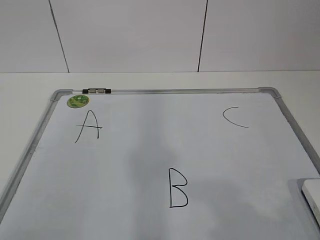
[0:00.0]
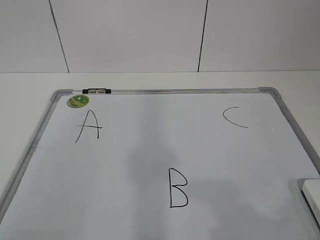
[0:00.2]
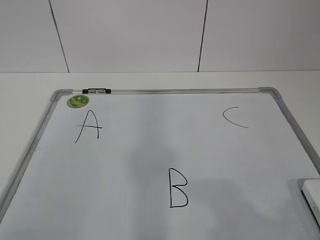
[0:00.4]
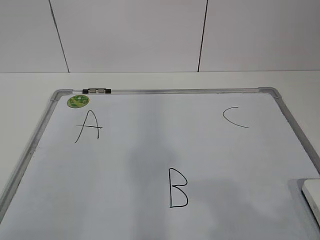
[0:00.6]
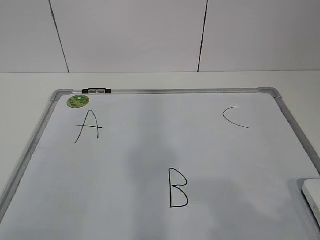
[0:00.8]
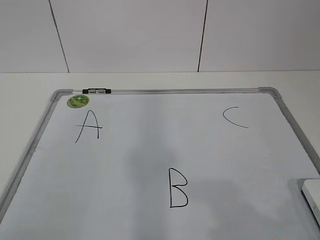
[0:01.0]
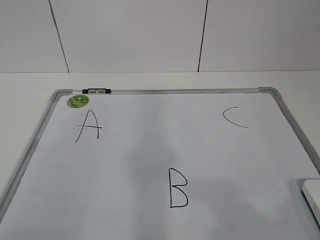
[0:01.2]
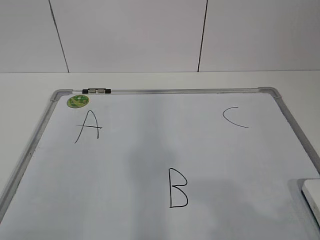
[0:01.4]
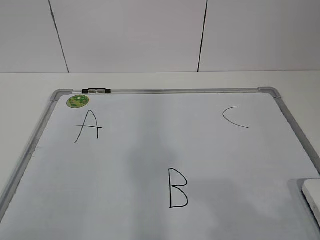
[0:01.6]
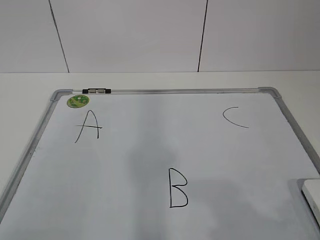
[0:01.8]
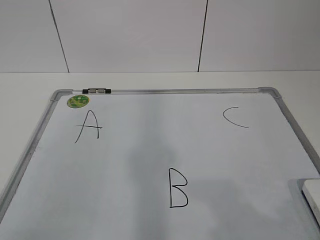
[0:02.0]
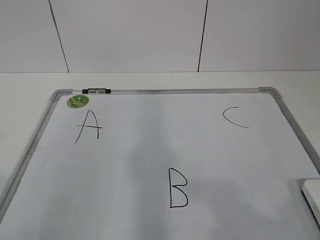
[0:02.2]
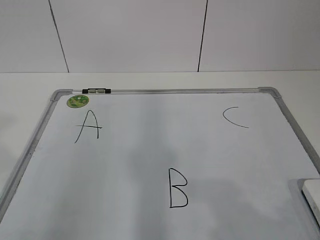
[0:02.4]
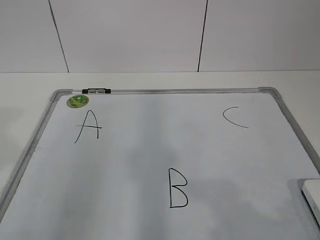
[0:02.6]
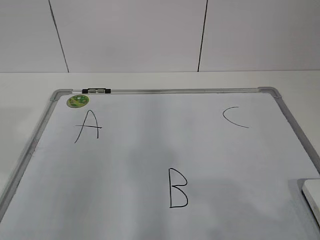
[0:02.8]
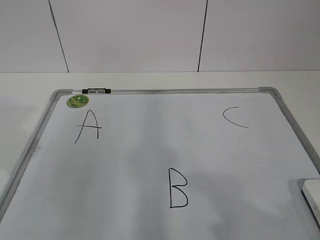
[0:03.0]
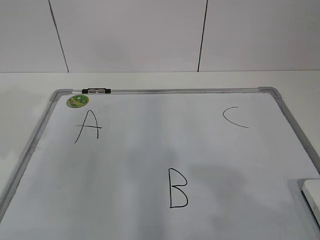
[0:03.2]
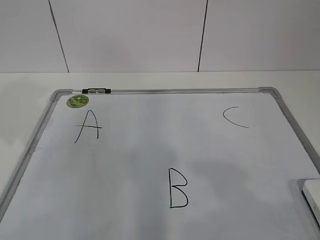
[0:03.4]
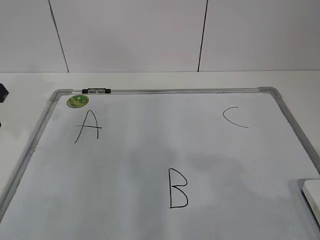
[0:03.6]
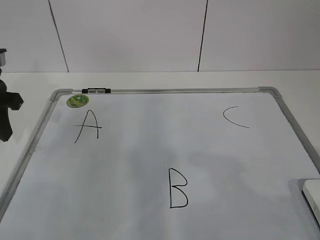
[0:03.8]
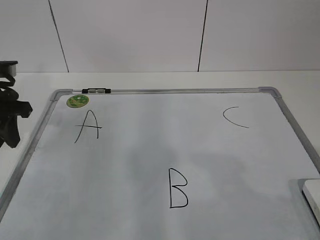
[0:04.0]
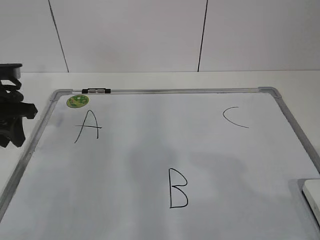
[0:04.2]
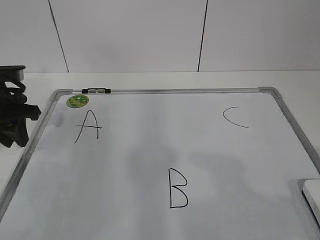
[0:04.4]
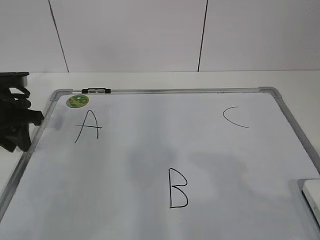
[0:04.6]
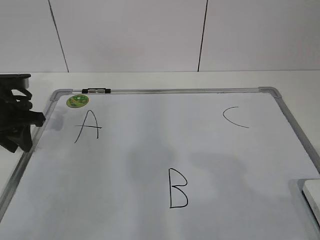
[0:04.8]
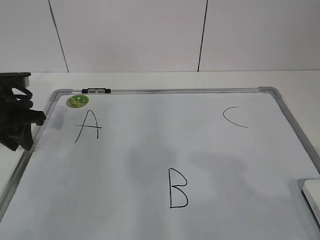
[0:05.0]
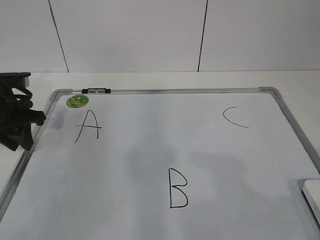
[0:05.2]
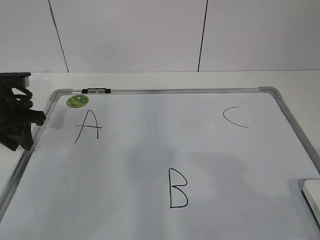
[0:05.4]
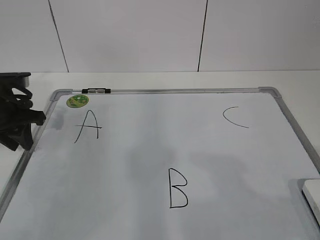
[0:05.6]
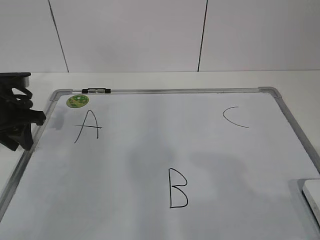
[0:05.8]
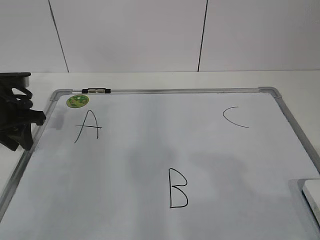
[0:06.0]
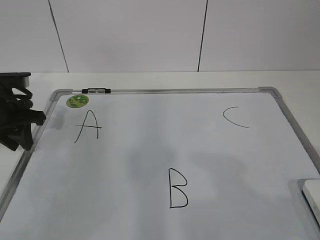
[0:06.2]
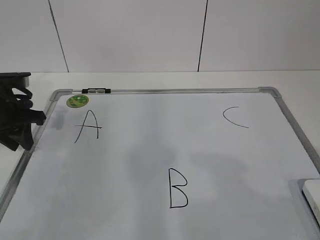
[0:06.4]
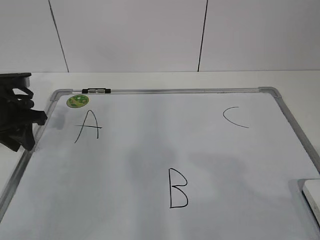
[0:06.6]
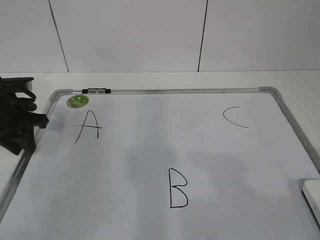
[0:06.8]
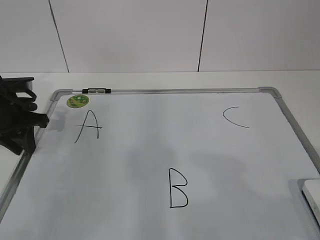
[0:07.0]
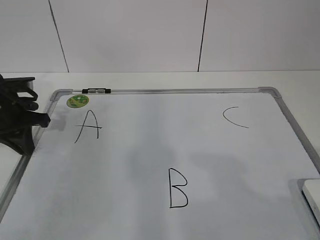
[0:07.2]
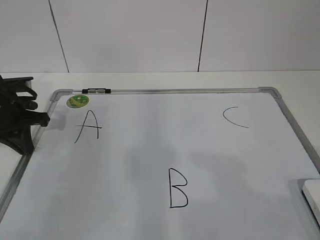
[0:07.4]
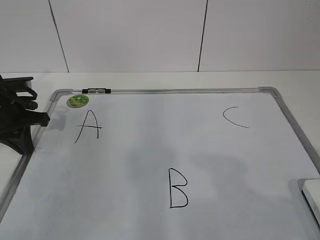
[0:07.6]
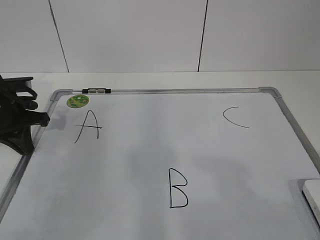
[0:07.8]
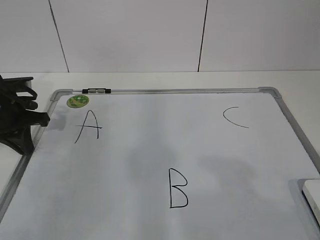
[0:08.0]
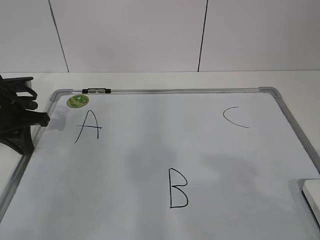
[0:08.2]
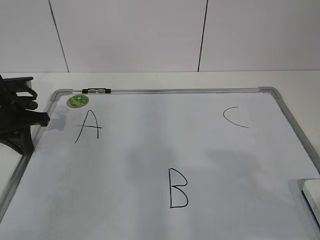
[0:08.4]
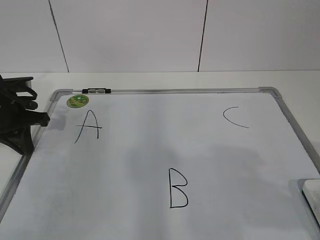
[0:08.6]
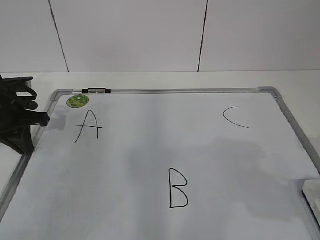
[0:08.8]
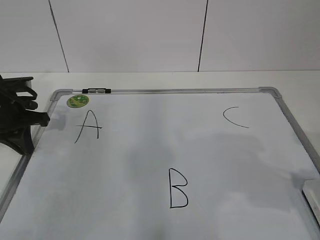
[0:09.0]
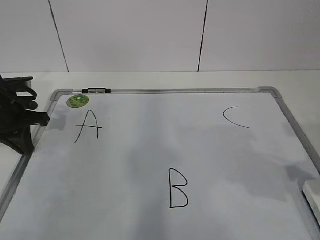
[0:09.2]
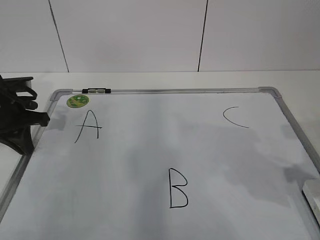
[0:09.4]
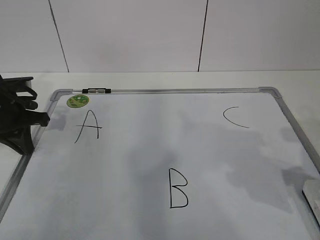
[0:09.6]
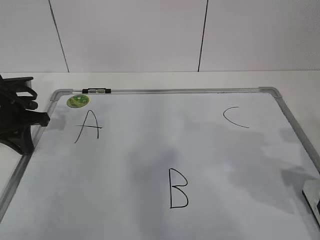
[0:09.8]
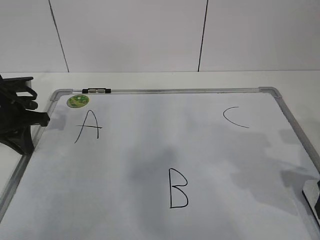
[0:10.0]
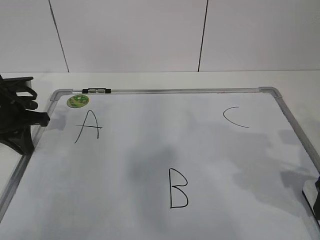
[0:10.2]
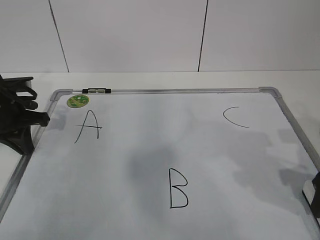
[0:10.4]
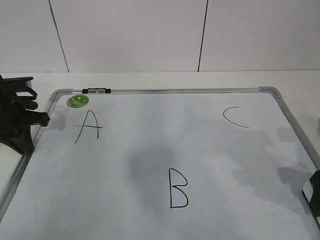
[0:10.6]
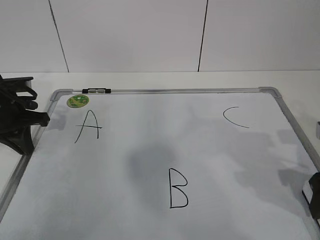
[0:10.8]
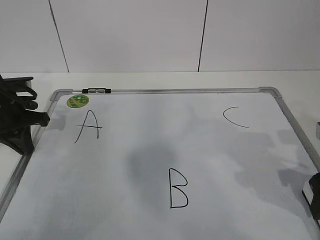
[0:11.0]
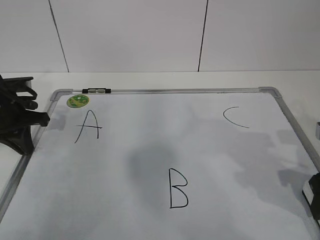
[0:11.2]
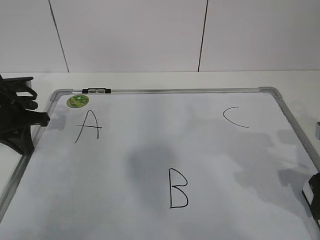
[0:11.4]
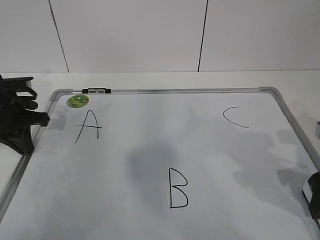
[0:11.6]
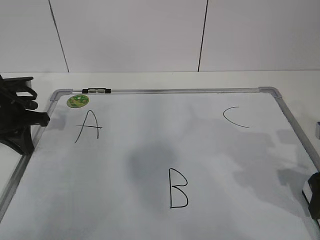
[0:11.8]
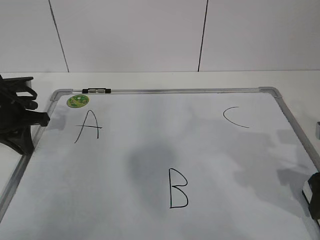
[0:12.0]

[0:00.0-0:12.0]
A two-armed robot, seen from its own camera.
Task of the whole recording: pick up the eraser on the blackboard and erase the letter "B".
Step, 0:00.0 to 0:05.8: Hold the drawing board steady with your left hand.
Step, 0:06.2 to 0:11.8: Grab the eraser with your right hand.
0:03.0 to 0:04.4: The left gripper goes roughly 20 cm forward and downward.
0:04.4 to 0:06.0: The grippers stay close to where they were, moving slightly.
0:06.0 to 0:07.6: The left gripper closes up.
0:09.0 to 0:10.4: The right gripper goes about 5 cm forward, and opens its fingers.
0:10.4 to 0:12.0: Both grippers stay about where they are.

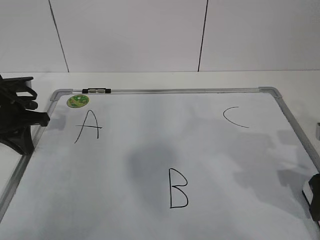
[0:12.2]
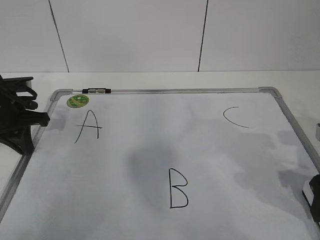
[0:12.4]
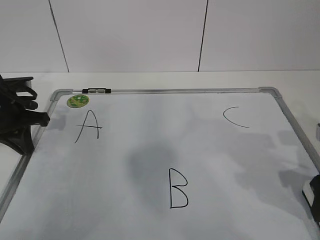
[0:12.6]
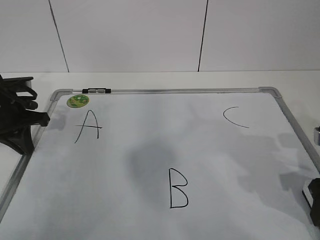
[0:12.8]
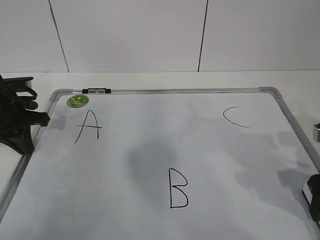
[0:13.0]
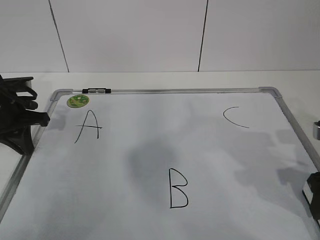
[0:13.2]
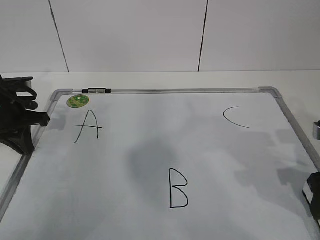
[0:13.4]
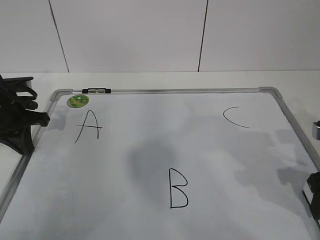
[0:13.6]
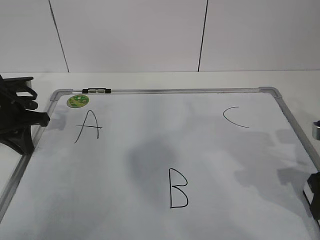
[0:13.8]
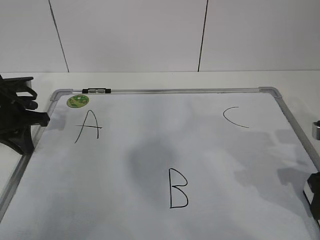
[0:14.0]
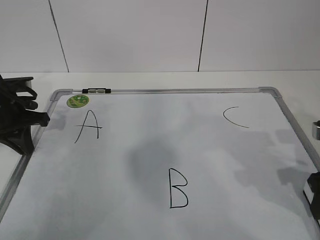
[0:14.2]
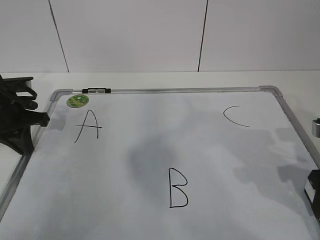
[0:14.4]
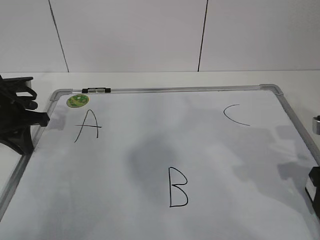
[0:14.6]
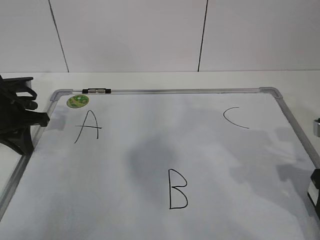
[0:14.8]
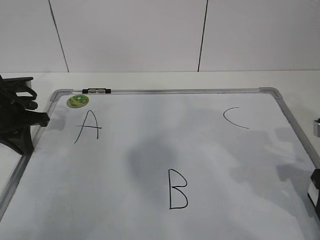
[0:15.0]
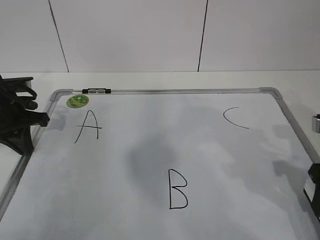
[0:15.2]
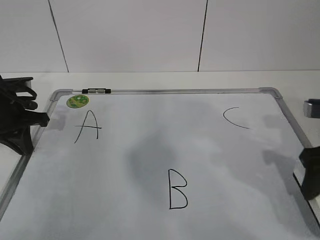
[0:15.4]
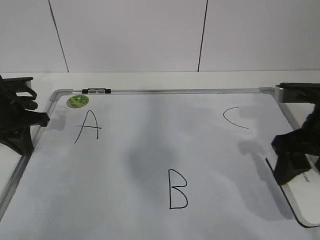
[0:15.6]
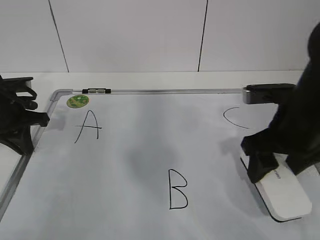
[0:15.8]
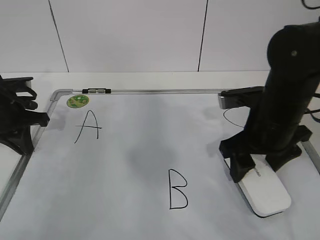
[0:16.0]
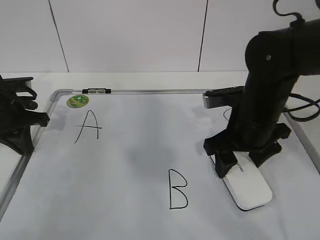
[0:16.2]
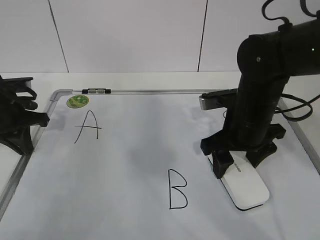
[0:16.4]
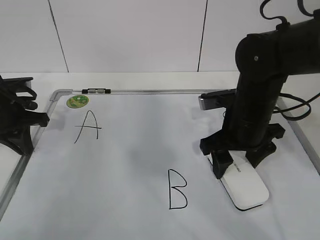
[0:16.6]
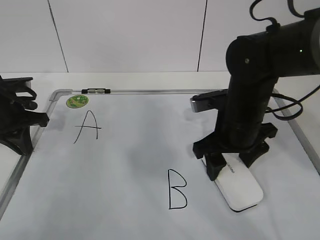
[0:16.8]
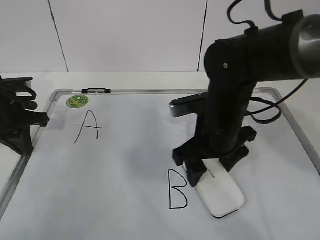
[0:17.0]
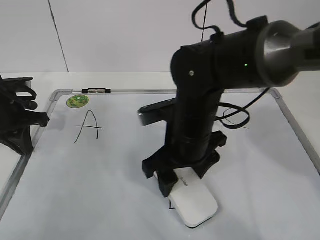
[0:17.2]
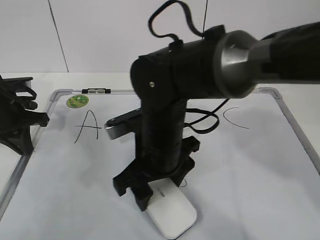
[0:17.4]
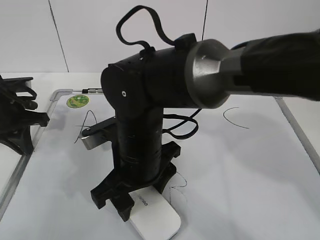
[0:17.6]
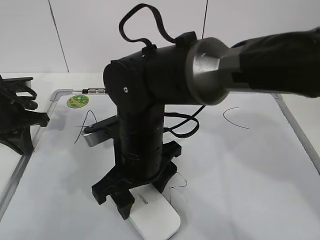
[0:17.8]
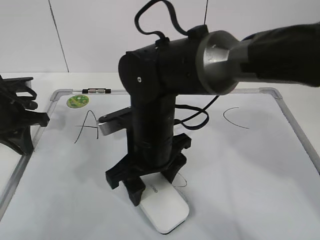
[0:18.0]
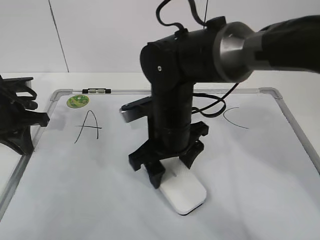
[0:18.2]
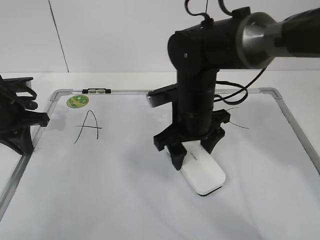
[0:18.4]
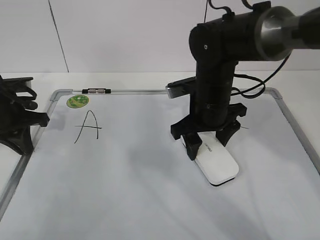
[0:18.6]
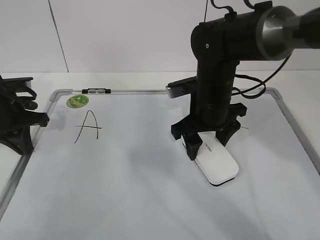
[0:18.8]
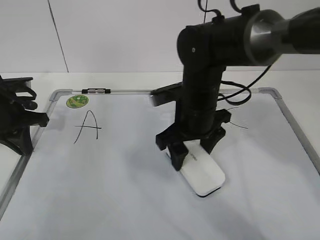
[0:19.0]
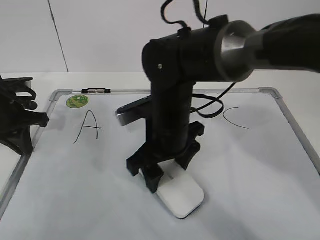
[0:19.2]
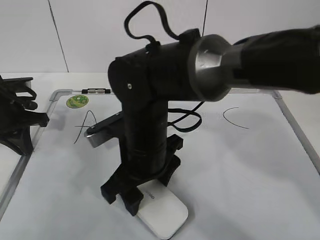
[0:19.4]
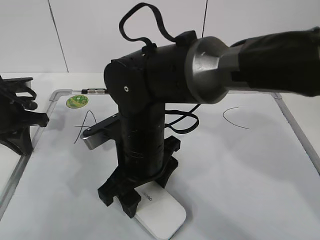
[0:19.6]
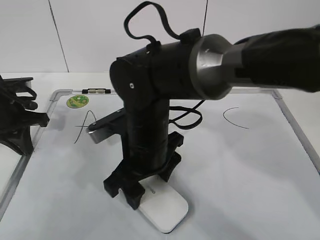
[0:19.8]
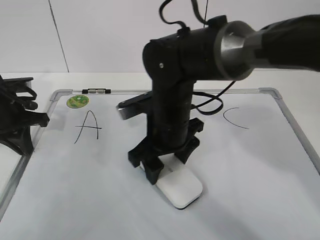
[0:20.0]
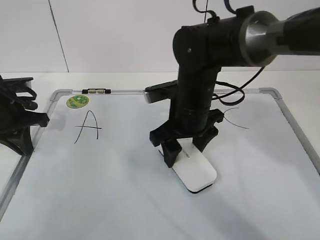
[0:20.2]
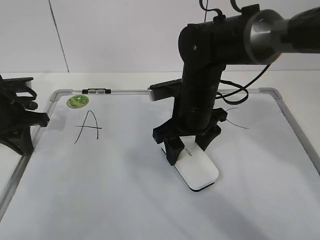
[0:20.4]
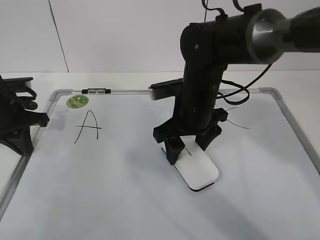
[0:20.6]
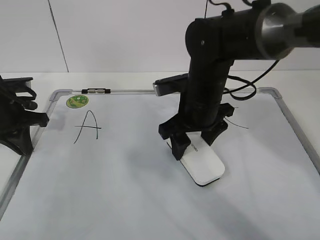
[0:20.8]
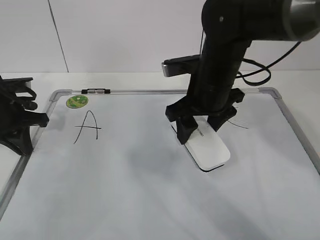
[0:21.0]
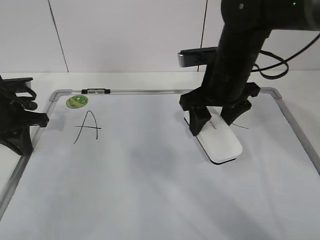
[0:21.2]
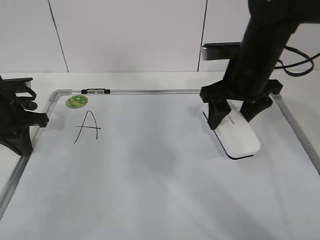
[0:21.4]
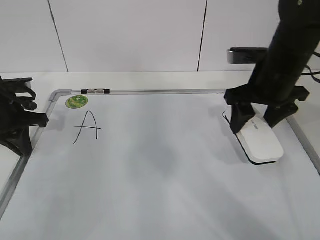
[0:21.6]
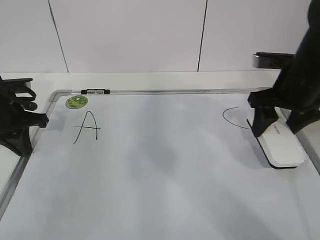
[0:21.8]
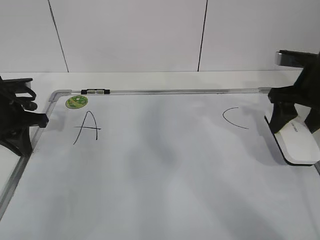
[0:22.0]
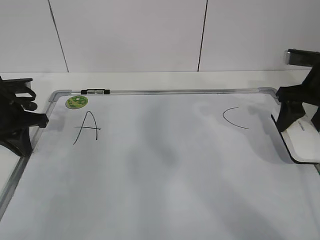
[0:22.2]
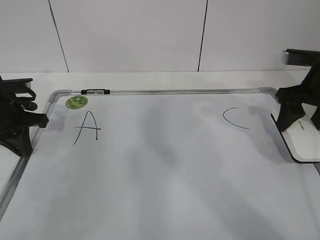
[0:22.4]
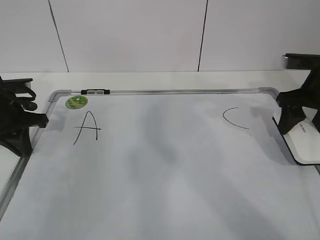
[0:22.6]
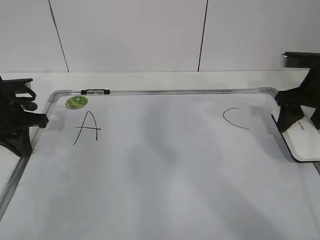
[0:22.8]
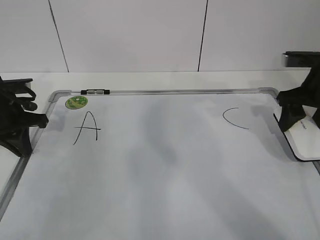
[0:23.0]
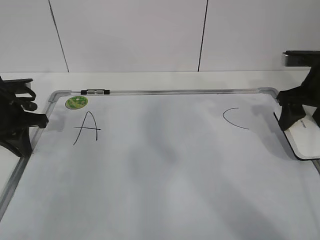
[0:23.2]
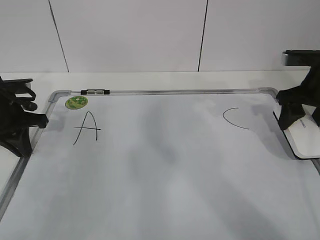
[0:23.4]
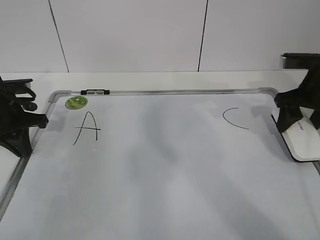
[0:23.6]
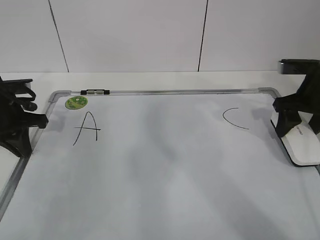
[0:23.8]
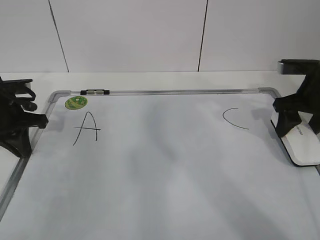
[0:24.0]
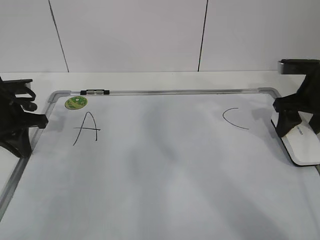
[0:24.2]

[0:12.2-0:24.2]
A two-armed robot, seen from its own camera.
Task of the whole recording: pick up the eraser on the blackboard and erase the letter "B".
Step, 0:12.2 to 0:17.2: Erase the letter B with your right hand.
Step, 0:17.4 to 0:20.4: Put down the eraser with your right hand.
0:13.8 to 0:15.2: There are only small adjustments of the grippers.
0:15.2 to 0:16.6: The right gripper shifts roughly 15 cm to the left and forward.
0:16.6 to 0:18.2: The right gripper shifts about 10 cm to the left.
0:18.2 to 0:19.8: The right gripper goes to the right and returns, about 5 cm each way.
0:19.8 to 0:21.2: The right gripper is displaced to the right, forward and upward by roughly 15 cm.
0:21.2 to 0:22.6: The right gripper moves to the right, some 20 cm.
0:22.6 to 0:24.2: The grippers stay close to where they were, moving slightly.
